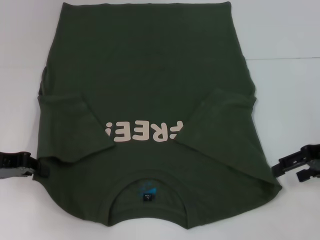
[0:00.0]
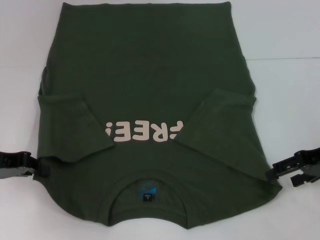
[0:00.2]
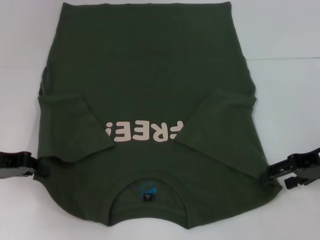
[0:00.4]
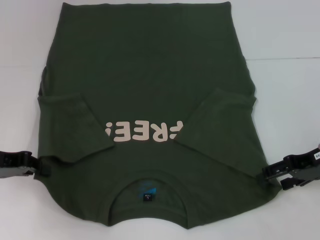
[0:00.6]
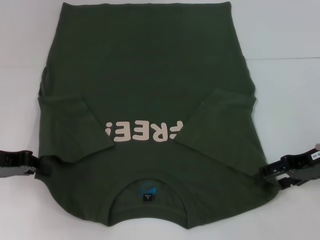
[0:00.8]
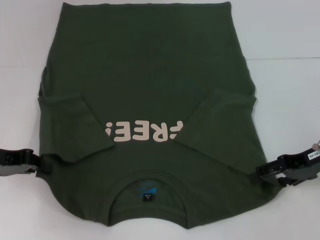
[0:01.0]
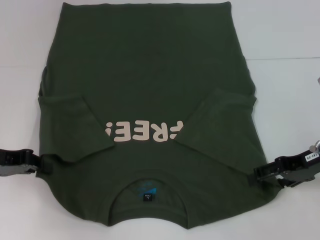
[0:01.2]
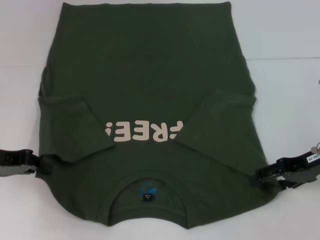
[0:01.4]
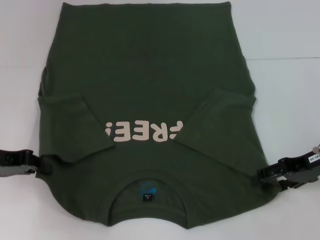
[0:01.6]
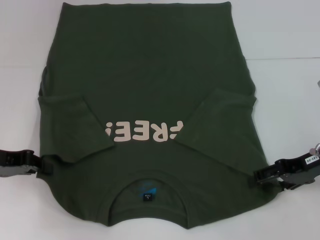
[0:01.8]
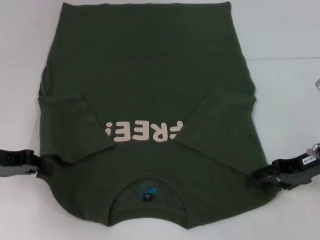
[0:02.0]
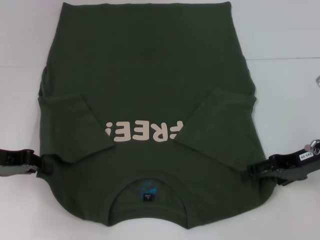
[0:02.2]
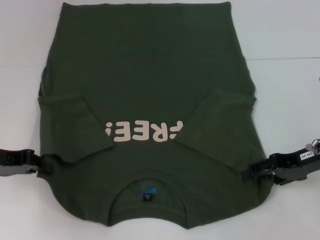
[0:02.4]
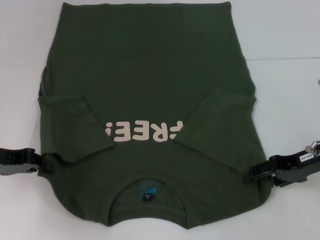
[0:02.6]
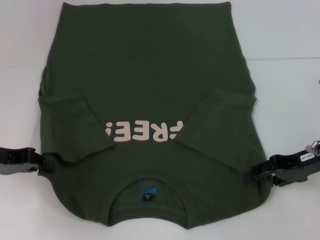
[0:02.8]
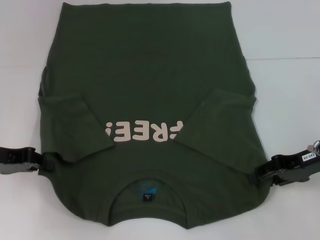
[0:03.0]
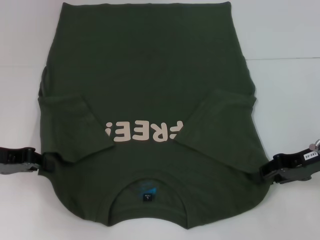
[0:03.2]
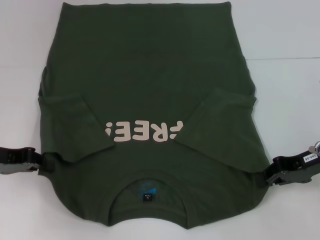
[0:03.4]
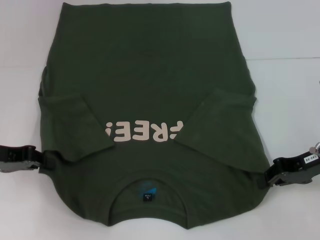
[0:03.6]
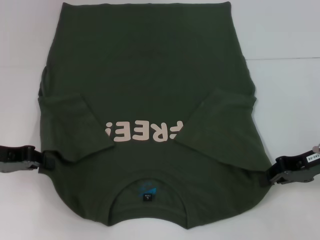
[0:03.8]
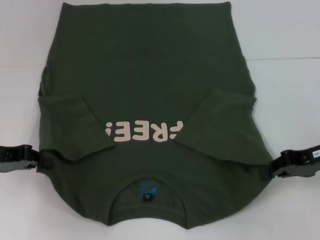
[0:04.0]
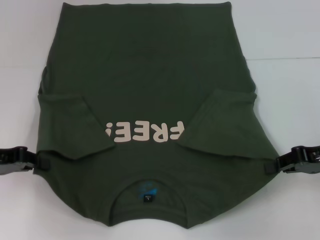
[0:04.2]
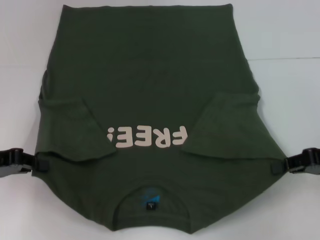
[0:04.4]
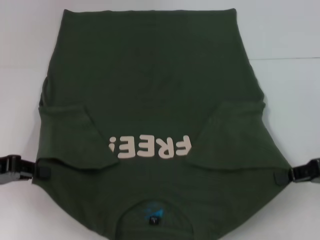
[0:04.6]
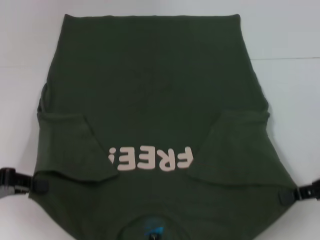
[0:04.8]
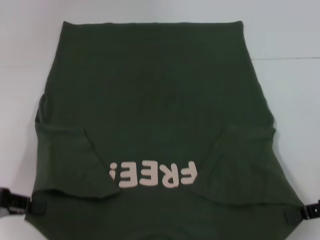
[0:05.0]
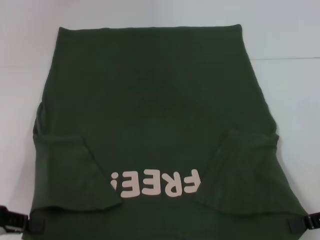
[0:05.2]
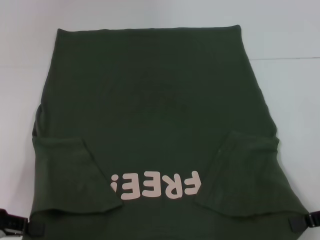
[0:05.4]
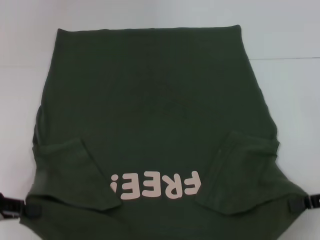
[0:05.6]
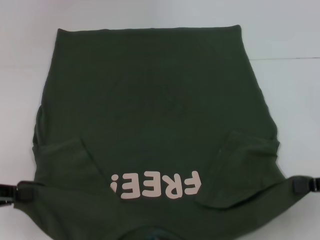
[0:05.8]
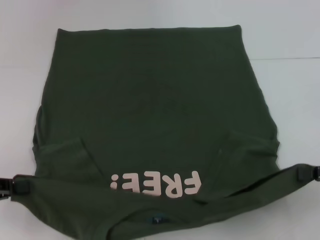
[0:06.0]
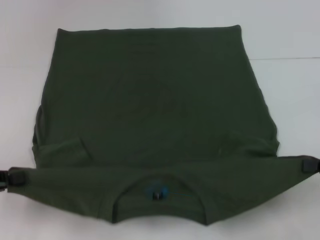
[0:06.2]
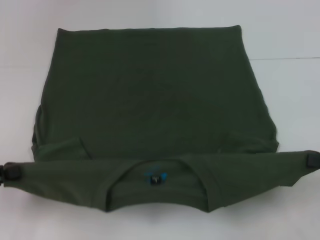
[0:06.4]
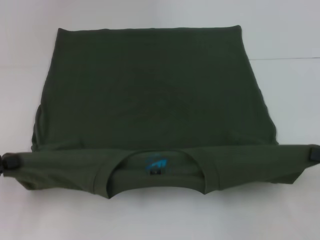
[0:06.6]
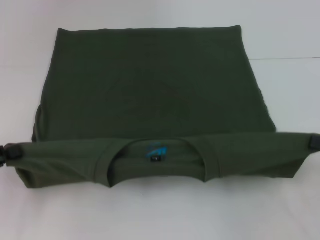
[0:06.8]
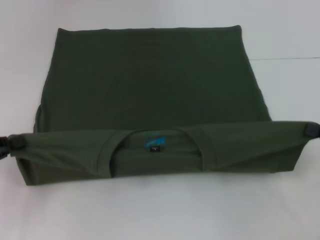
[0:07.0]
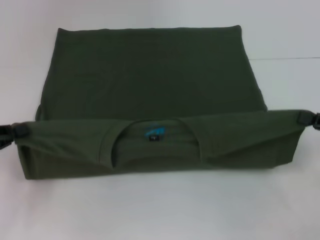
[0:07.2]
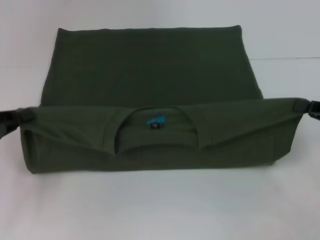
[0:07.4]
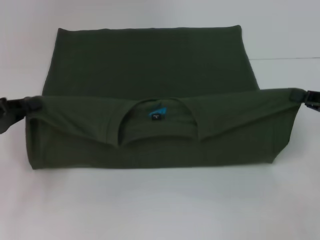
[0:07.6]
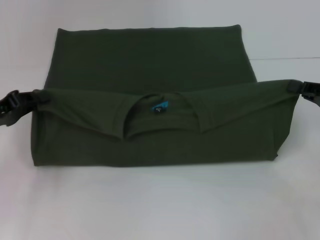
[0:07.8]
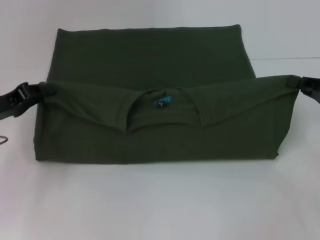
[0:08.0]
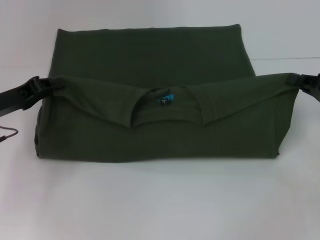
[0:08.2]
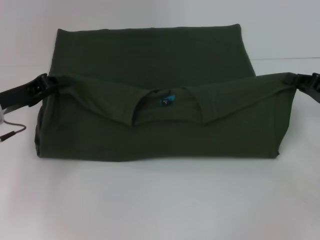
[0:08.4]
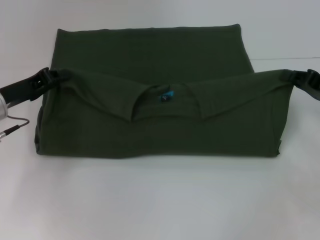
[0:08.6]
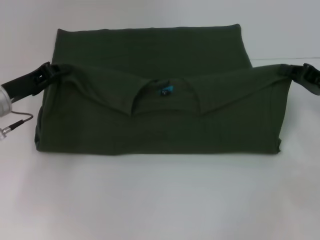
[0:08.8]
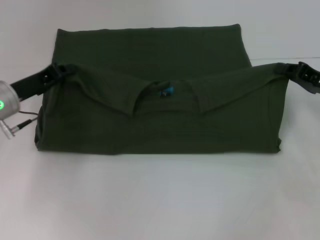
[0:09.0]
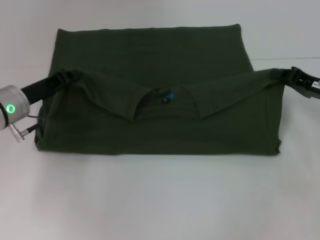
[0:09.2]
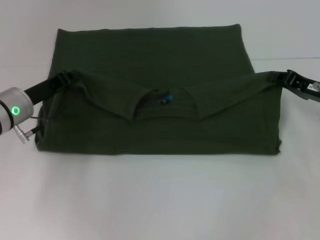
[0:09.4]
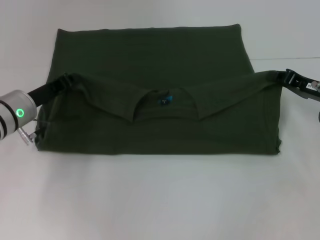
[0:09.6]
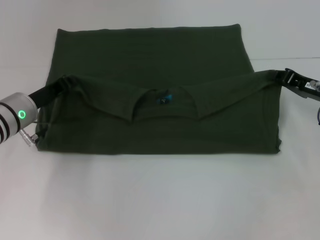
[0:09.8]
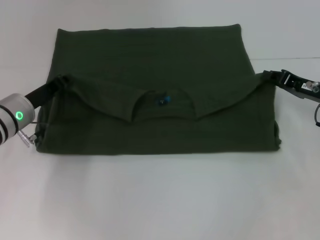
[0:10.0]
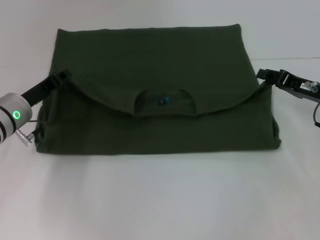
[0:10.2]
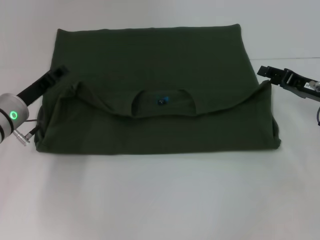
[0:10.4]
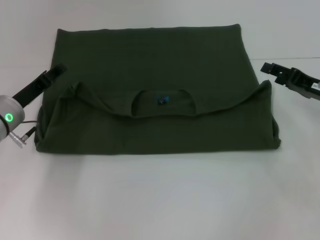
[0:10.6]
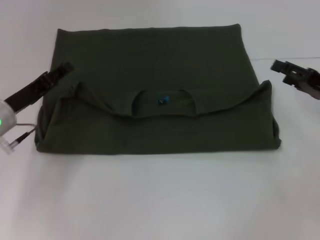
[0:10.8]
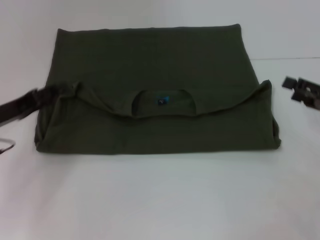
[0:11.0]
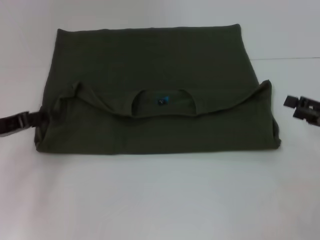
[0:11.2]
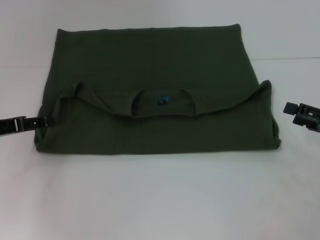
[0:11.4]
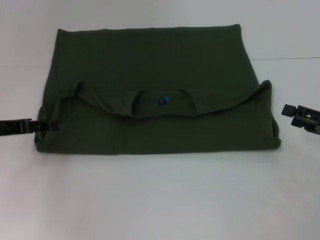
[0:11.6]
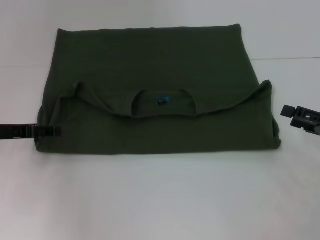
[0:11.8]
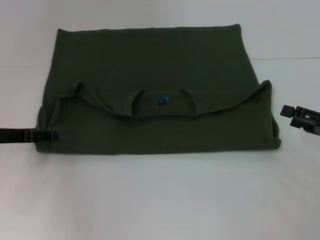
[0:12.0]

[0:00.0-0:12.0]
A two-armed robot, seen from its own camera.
Step, 0:00.0 to 0:03.8: Grab the bottom right corner with your right hand.
Step, 0:04.0 to 0:10.2: Fold the clothes with your left hand.
Step, 0:04.0 to 0:10.2: Fold the clothes with your right hand.
0:00.0 to 0:03.0: There are only small adjustments of the grippers.
0:03.0 to 0:04.4: The right gripper changes place by some 5 cm, and closes up.
0:04.4 to 0:06.0: The grippers both shift backward by some 5 cm.
0:06.0 to 0:07.6: The two grippers go about 5 cm forward.
0:07.6 to 0:09.0: The left gripper is displaced forward and to the right by some 10 cm. The right gripper heads forward, covering about 5 cm.
0:09.0 to 0:10.4: The grippers stay close to where they were, moving slightly.
0:10.4 to 0:12.0: The right gripper shifts roughly 10 cm backward and to the right, and opens its fingers. The left gripper goes roughly 5 cm to the left, and opens its fingers.

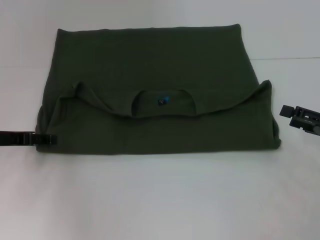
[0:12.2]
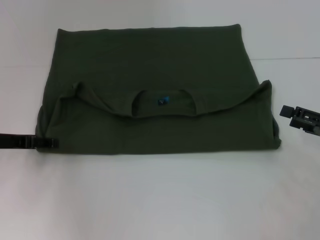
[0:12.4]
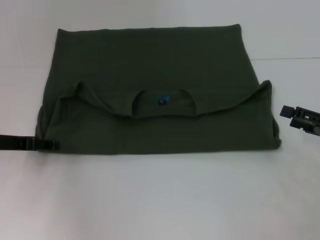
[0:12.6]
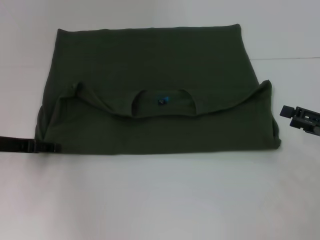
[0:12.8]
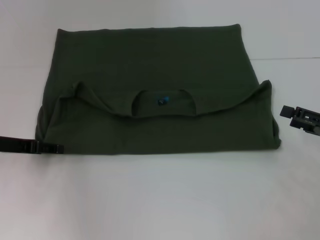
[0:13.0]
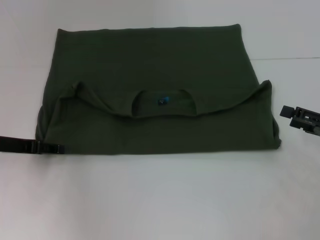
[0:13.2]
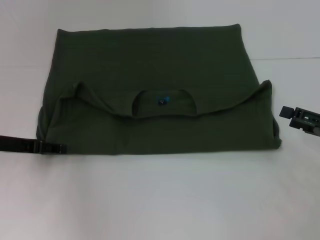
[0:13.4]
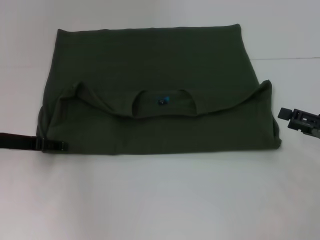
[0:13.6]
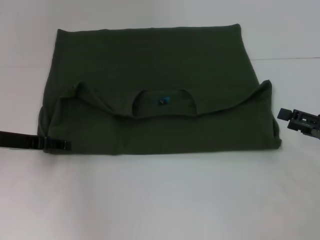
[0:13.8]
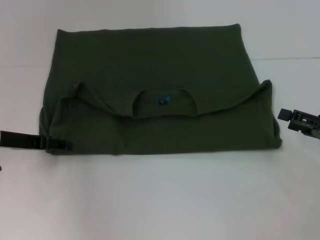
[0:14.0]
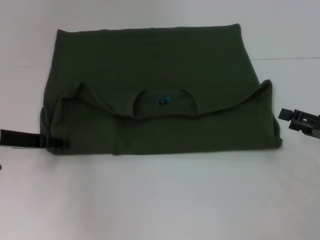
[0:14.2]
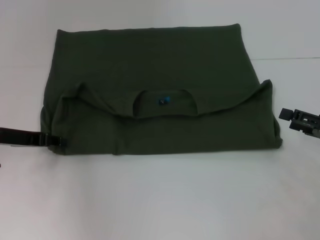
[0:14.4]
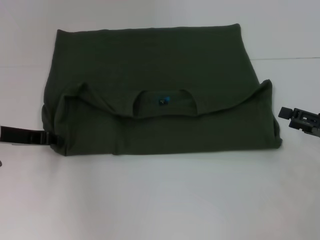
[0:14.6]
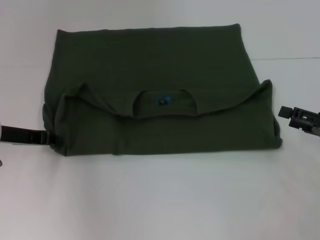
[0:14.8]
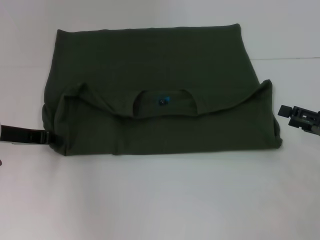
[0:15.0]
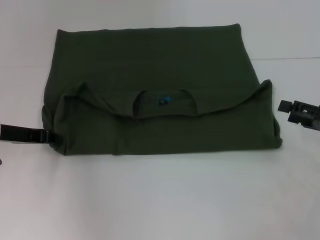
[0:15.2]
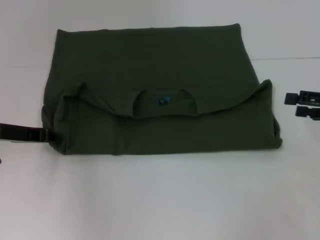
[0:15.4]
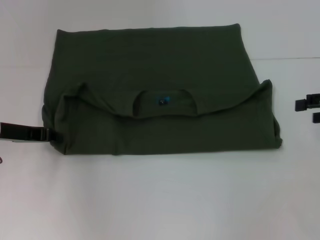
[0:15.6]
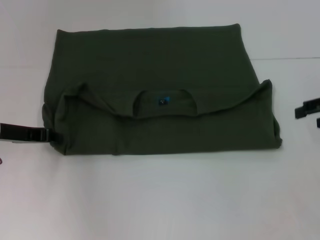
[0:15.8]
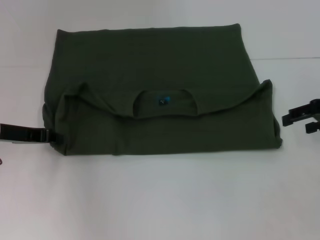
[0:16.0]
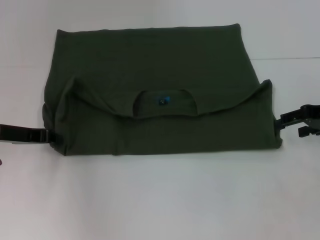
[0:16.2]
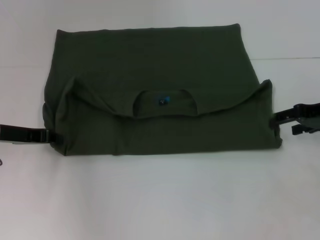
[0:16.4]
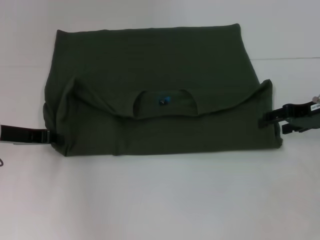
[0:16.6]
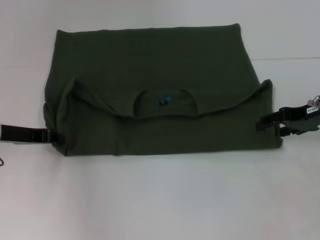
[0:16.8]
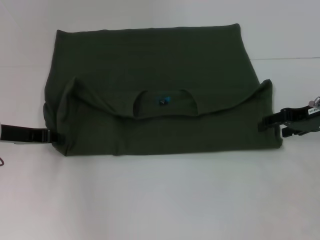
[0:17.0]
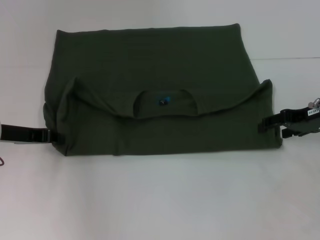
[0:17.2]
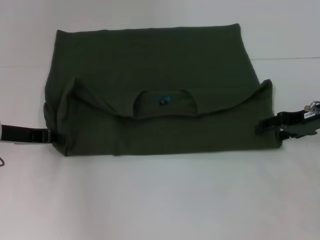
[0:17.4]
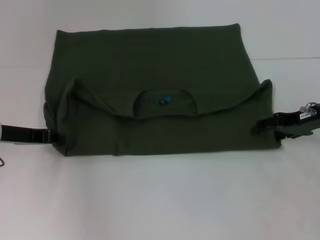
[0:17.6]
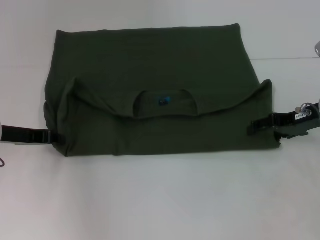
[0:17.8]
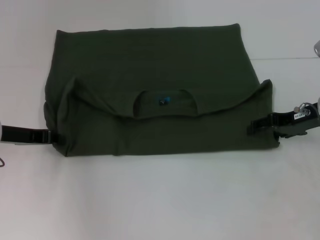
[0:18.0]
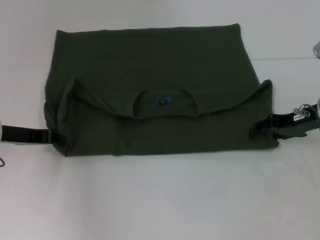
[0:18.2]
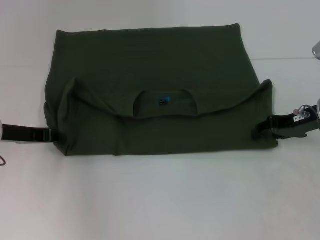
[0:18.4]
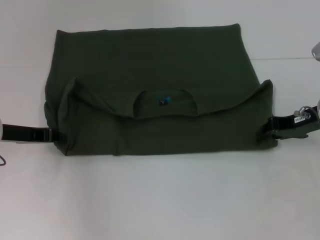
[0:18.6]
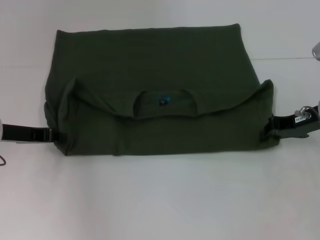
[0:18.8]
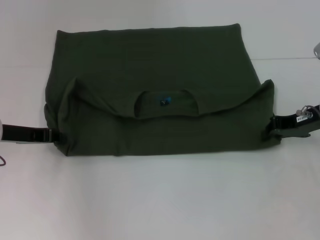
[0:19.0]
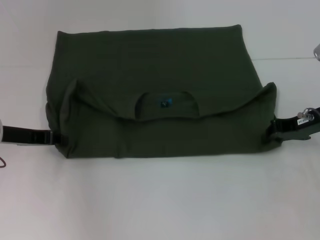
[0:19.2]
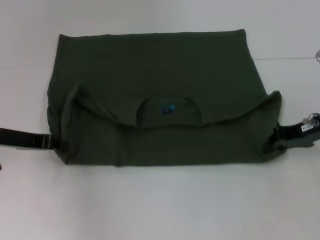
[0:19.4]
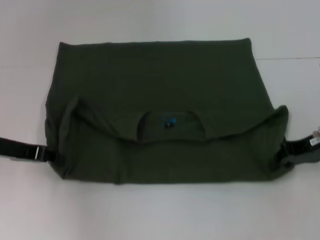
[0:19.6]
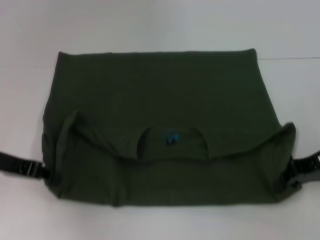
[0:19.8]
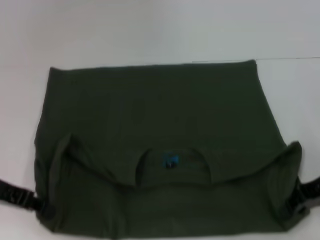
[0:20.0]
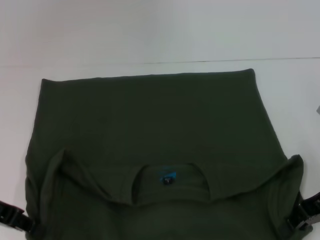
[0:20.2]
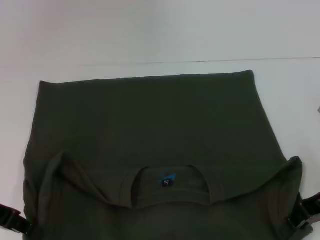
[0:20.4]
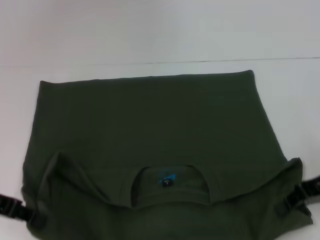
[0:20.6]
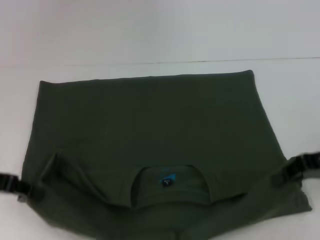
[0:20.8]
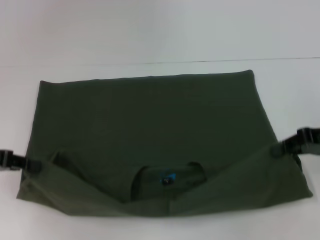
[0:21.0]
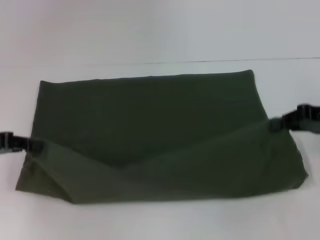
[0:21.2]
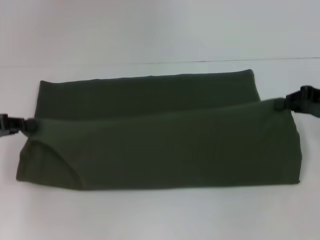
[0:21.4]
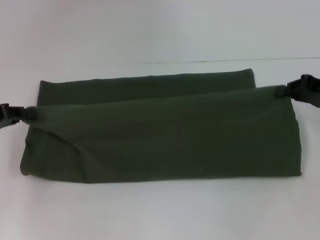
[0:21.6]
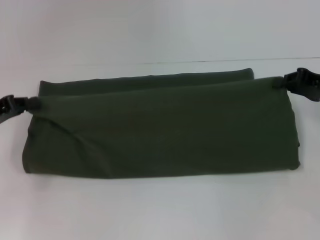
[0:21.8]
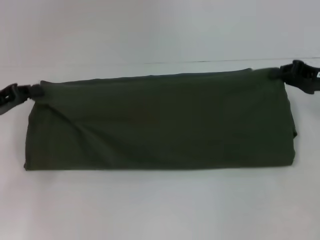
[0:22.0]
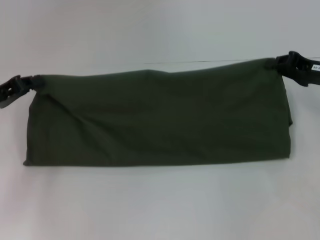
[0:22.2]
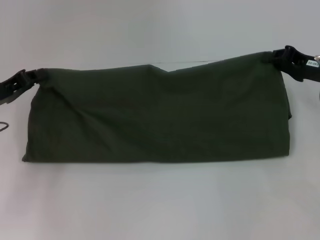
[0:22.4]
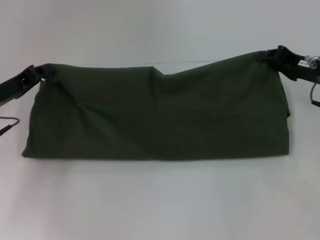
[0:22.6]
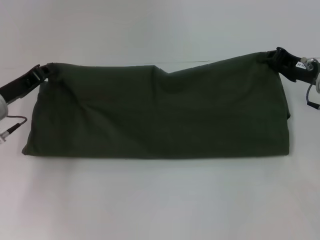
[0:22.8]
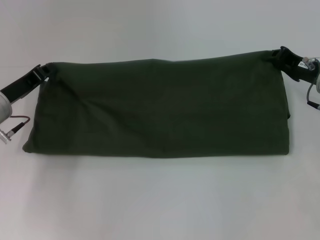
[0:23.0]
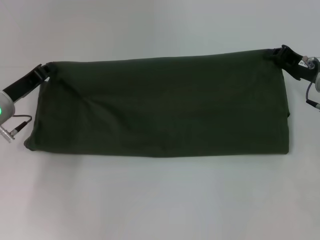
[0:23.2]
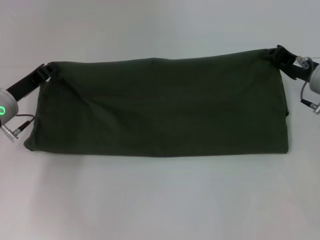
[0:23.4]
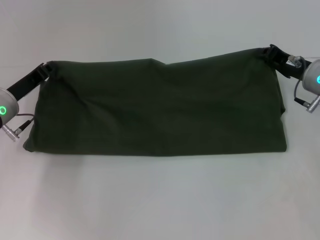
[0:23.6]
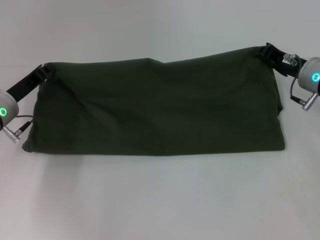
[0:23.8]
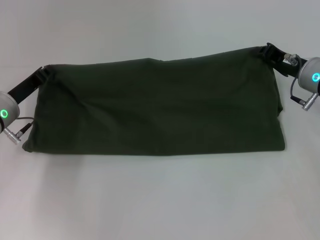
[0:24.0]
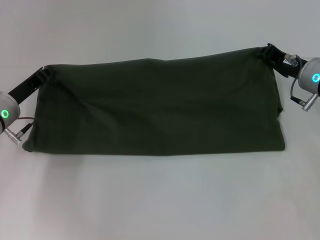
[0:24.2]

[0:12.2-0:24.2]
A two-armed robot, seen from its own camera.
Step, 0:12.2 to 0:20.2: Pull the clothes with your left hand.
Step, 0:12.2 to 0:20.2: Pull the clothes with your right hand.
0:12.2 to 0:13.8: The grippers move only a little.
0:13.8 to 0:15.2: The left gripper closes its fingers.
0:15.2 to 0:16.6: The right gripper shifts approximately 10 cm forward and to the left.
0:16.6 to 0:18.2: The grippers move only a little.
0:18.2 to 0:19.8: The right gripper shifts by roughly 5 cm, and closes up.
0:21.2 to 0:22.6: The right gripper is displaced forward by some 5 cm, while the left gripper heads forward and to the right, covering approximately 5 cm.
0:22.6 to 0:24.2: The grippers stay close to where they were, moving slightly.
